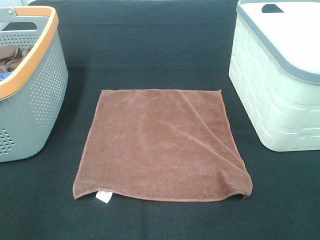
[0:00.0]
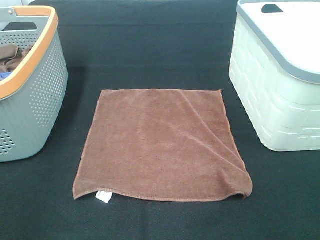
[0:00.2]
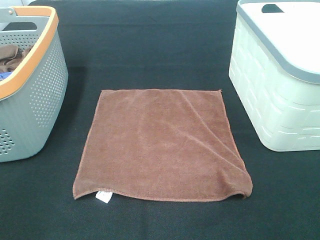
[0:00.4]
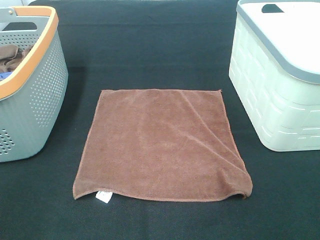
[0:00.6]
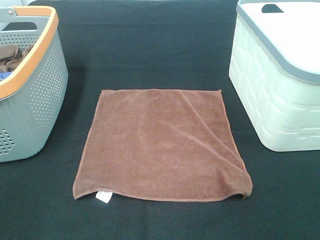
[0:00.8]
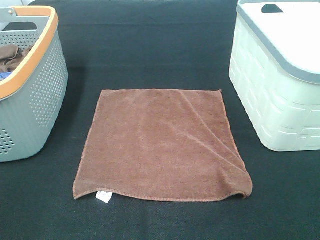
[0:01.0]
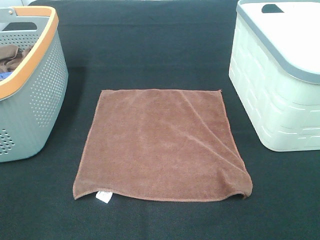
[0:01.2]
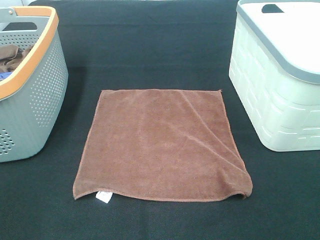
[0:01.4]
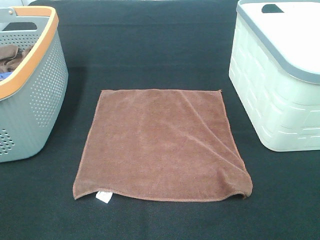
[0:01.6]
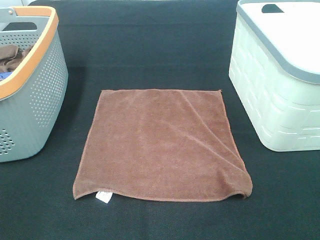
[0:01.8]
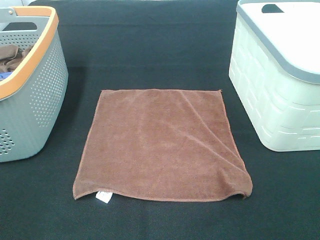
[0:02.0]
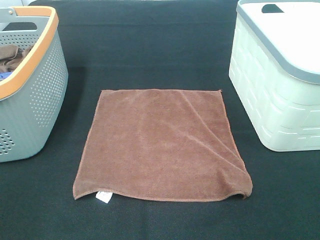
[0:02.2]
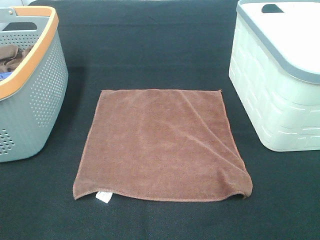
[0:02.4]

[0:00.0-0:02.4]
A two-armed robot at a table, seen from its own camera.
Task of the whole recording: Remove the towel and place it.
0:01.2 to 0:02.4: Both grippers stay about where they are.
